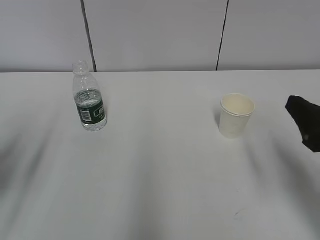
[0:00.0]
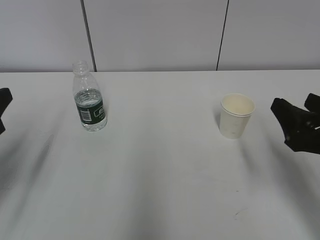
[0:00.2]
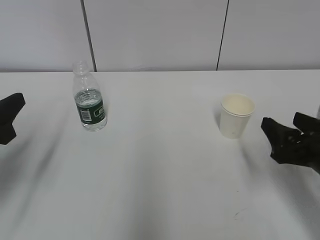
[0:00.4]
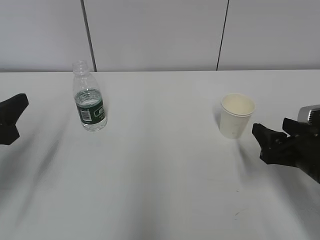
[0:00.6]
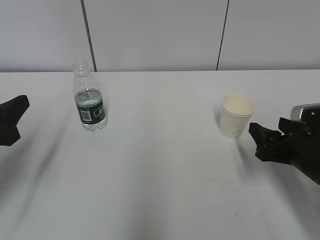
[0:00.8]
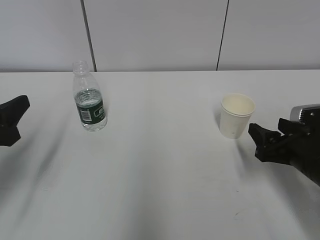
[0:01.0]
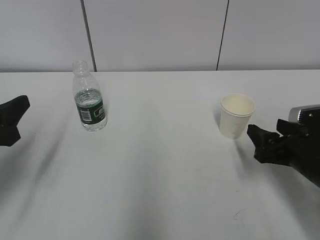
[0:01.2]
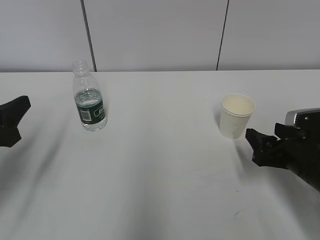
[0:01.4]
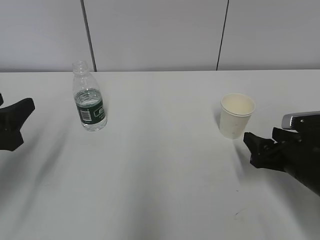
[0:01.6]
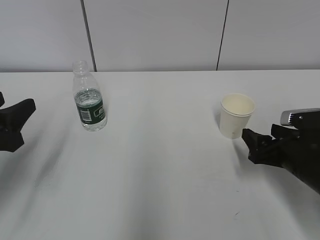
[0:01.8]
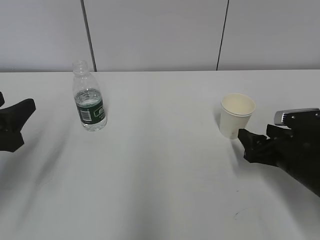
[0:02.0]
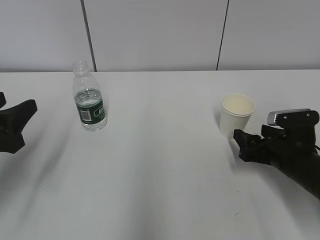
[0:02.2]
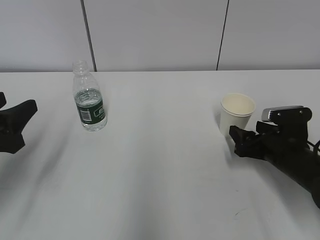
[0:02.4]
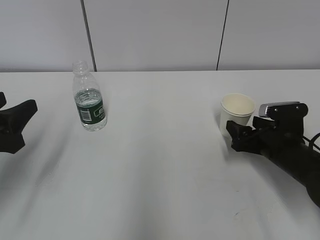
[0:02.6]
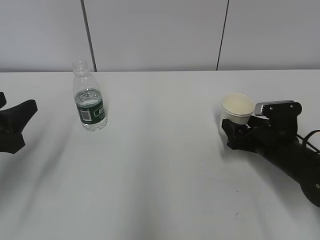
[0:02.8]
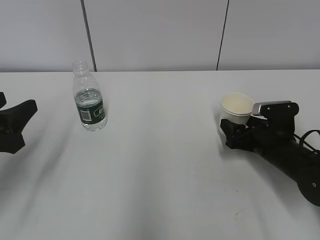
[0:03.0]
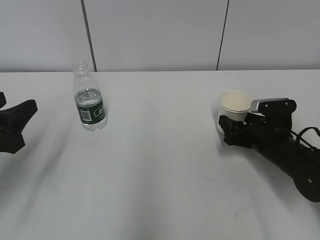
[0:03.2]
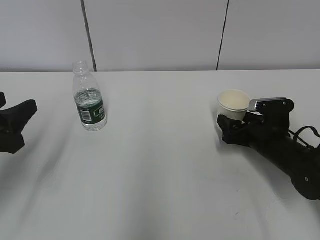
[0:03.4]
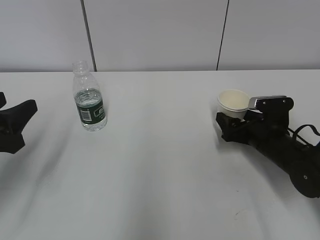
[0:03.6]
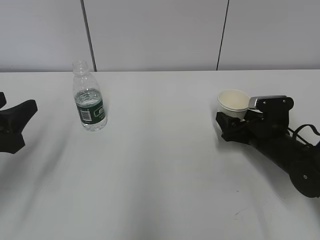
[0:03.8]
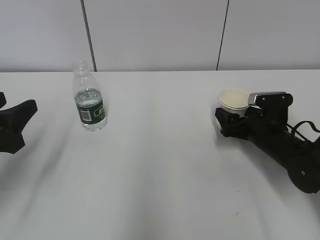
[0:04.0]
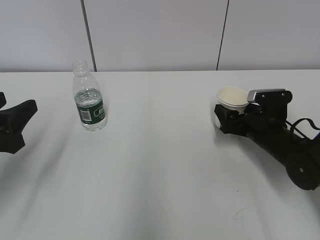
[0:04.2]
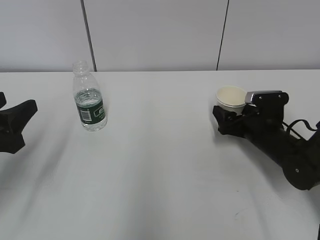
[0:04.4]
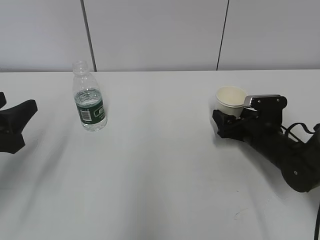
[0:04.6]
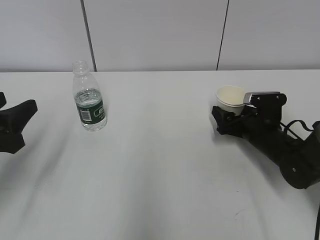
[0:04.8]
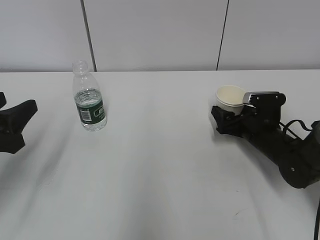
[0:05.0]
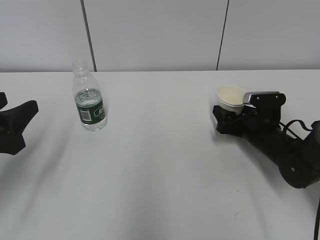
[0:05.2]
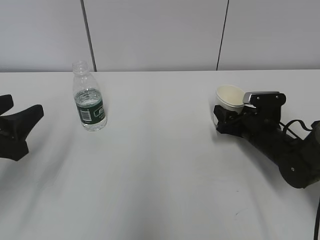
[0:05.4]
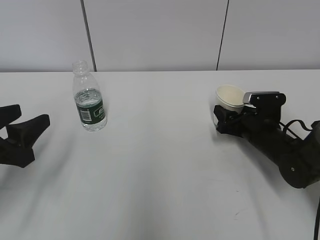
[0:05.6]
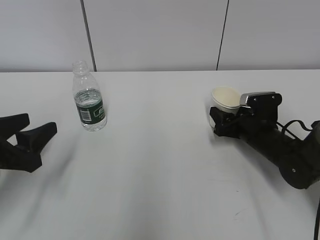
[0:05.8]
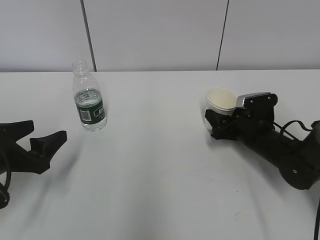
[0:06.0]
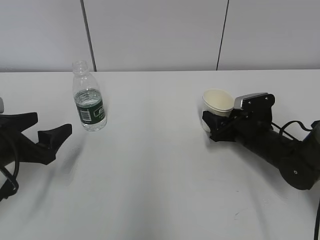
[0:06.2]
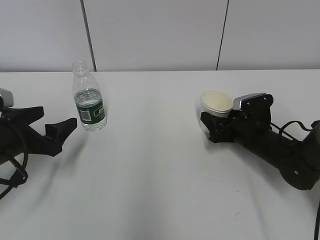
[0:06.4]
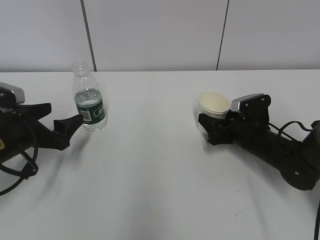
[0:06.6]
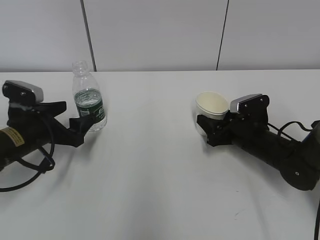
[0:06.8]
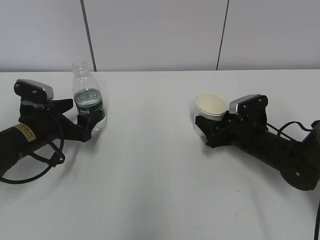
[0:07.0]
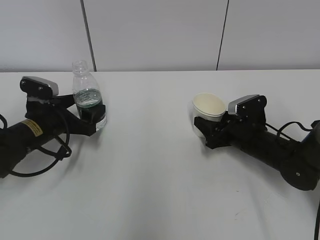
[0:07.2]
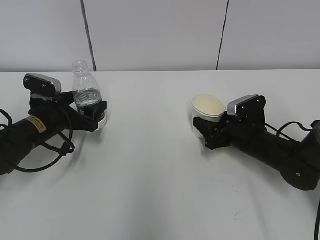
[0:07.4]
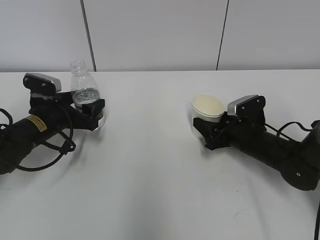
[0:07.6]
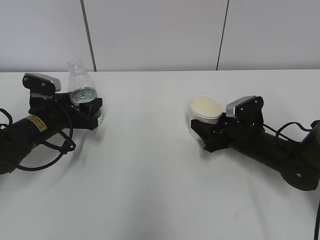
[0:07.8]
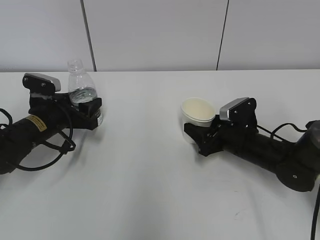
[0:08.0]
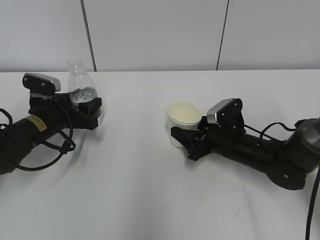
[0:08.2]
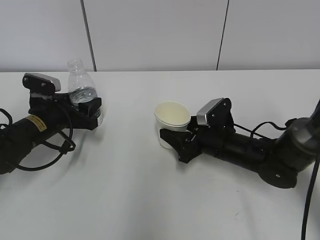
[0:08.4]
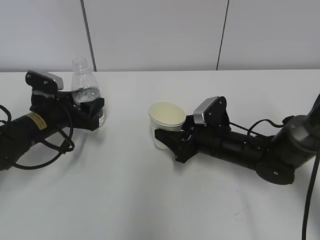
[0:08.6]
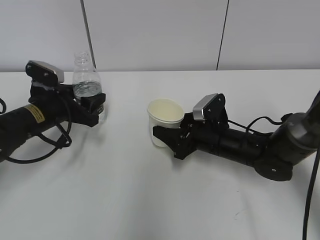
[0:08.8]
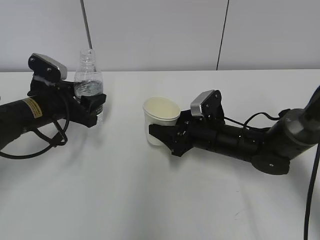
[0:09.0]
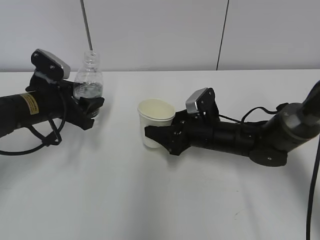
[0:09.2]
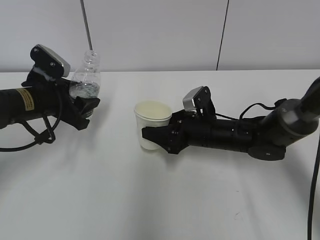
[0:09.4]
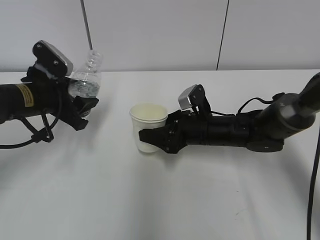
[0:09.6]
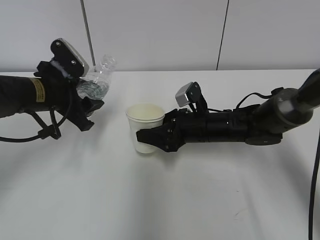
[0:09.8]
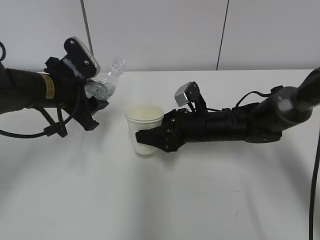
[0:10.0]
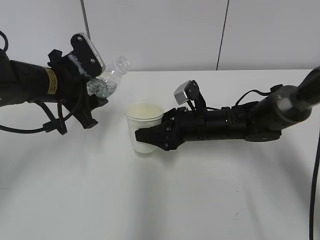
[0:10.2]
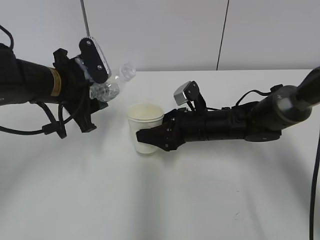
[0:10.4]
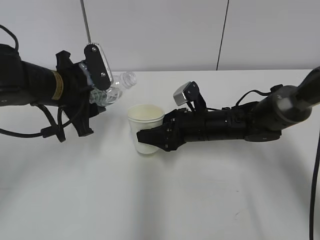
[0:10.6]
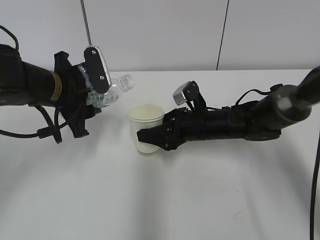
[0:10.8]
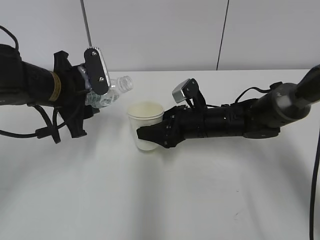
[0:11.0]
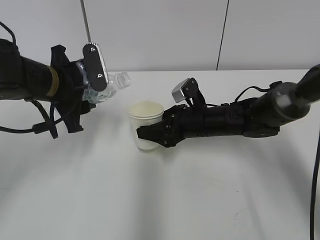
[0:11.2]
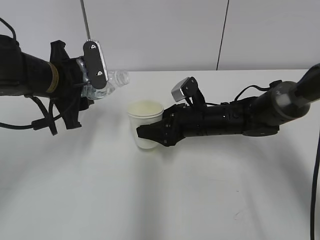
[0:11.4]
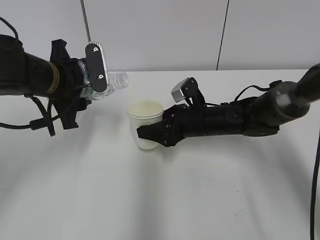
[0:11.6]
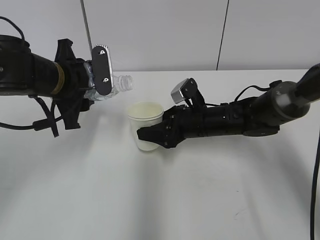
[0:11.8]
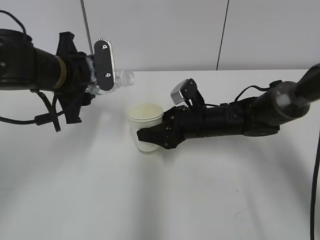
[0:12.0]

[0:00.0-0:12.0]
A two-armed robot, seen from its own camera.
Step, 0:00.0 to 0:06.4: Grab the paper cup with the right hand.
Step, 0:06.6 to 0:10.4: Lift the paper cup with the right hand.
0:00.0 to 0:01.6: The right gripper heads downward and forward, covering approximately 15 cm.
0:01.6 to 0:03.0: The right gripper is displaced forward by roughly 5 cm.
0:03.0 to 0:04.4: There are only small adjustments of the grippers.
0:04.4 to 0:06.0: The left gripper heads downward, covering about 5 cm, and opens up, while the right gripper closes up.
0:06.0 to 0:07.6: The left gripper shifts about 15 cm forward.
0:07.6 to 0:09.0: The left gripper closes; the right gripper goes about 5 cm to the left.
0:09.0 to 0:10.4: The left gripper is displaced upward by roughly 5 cm.

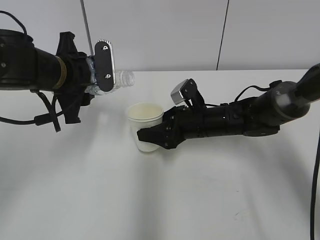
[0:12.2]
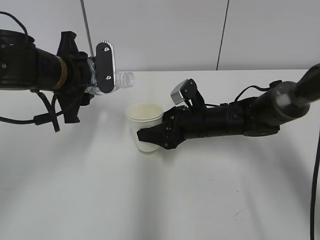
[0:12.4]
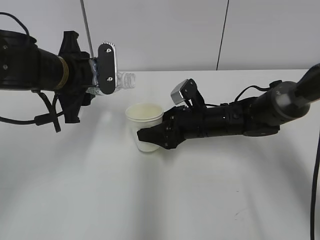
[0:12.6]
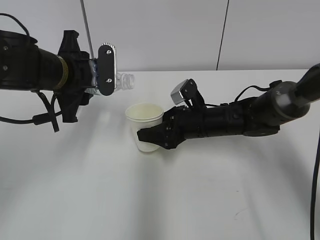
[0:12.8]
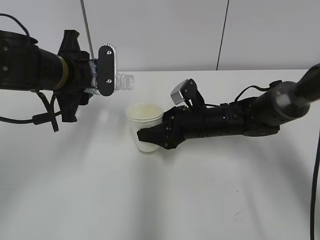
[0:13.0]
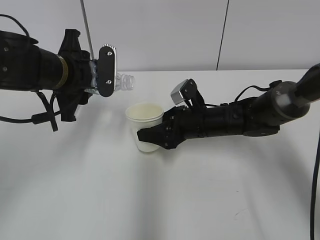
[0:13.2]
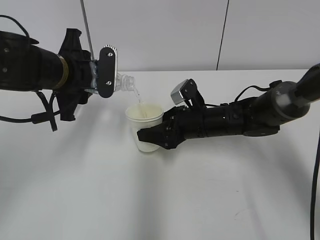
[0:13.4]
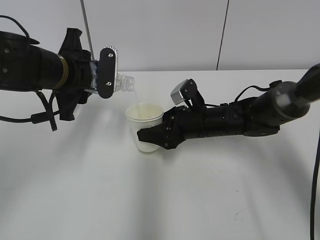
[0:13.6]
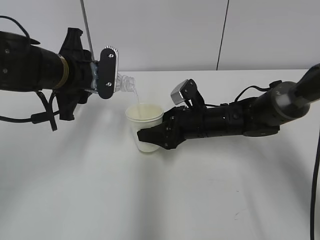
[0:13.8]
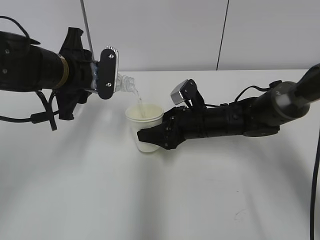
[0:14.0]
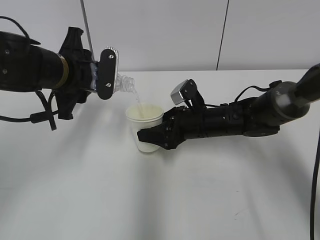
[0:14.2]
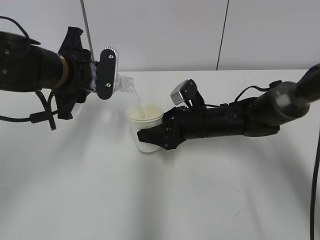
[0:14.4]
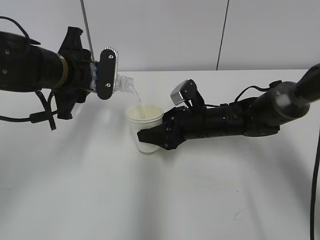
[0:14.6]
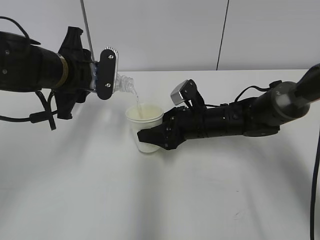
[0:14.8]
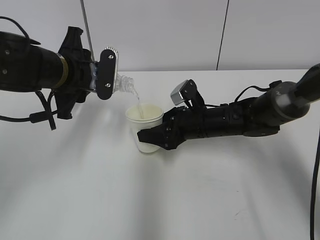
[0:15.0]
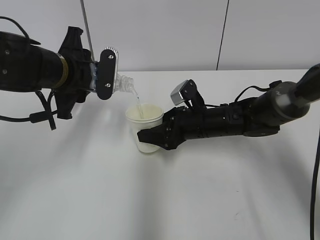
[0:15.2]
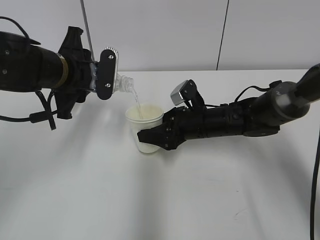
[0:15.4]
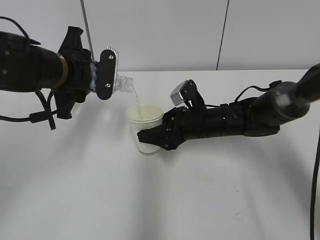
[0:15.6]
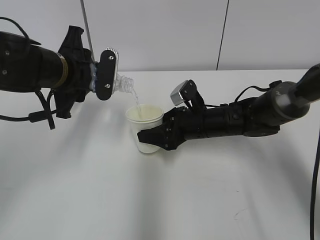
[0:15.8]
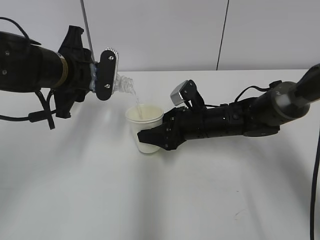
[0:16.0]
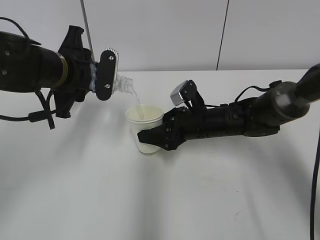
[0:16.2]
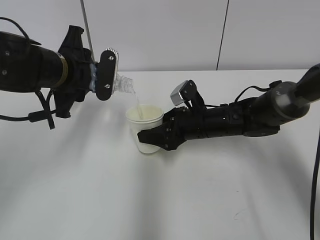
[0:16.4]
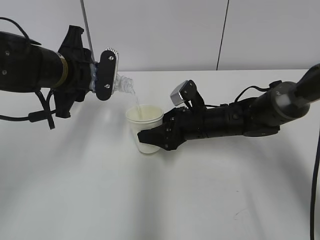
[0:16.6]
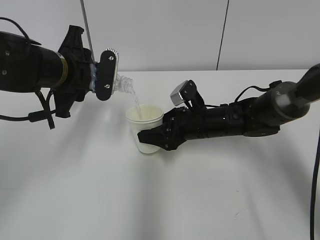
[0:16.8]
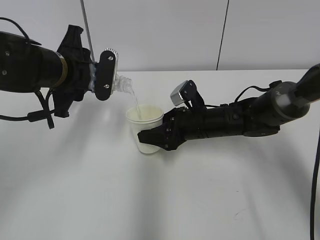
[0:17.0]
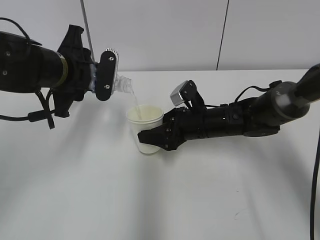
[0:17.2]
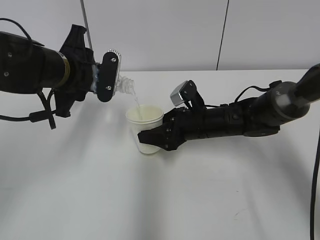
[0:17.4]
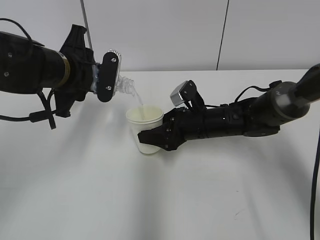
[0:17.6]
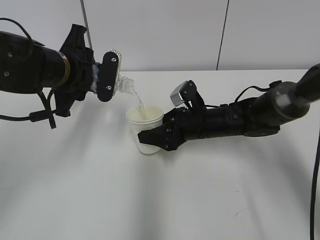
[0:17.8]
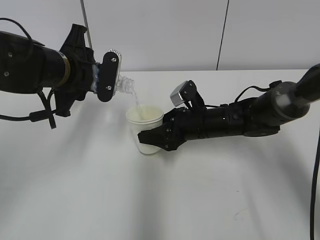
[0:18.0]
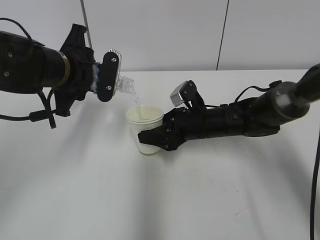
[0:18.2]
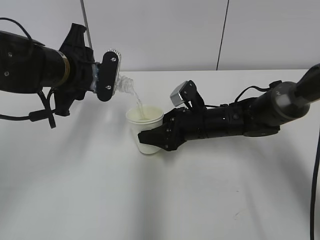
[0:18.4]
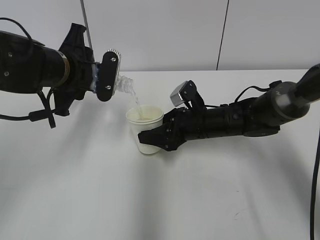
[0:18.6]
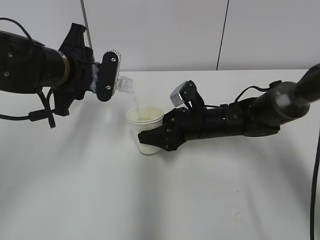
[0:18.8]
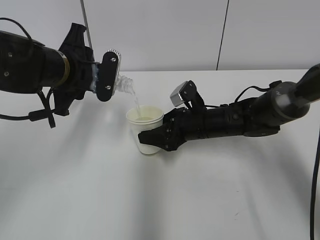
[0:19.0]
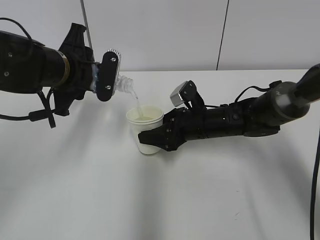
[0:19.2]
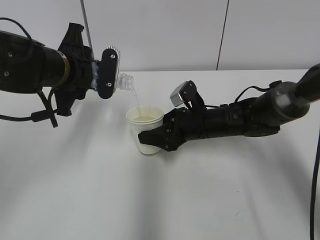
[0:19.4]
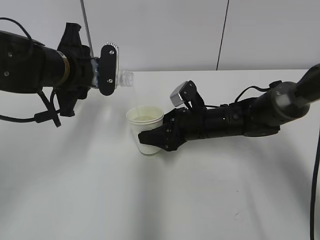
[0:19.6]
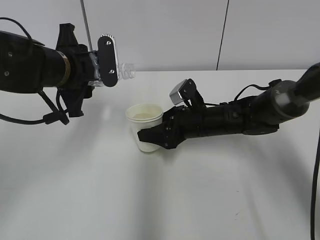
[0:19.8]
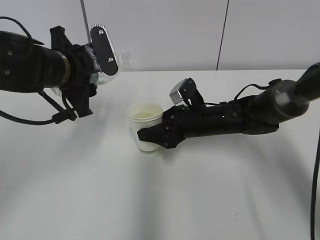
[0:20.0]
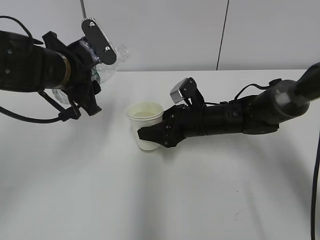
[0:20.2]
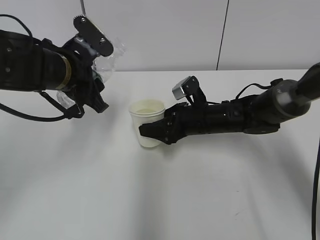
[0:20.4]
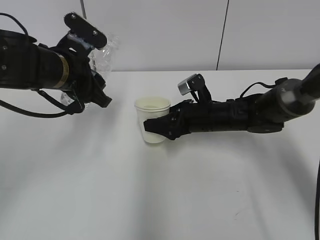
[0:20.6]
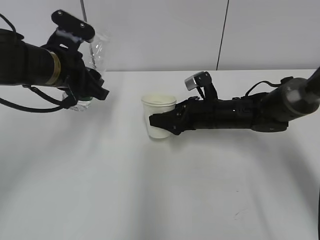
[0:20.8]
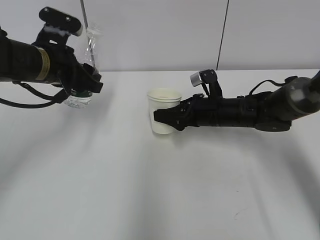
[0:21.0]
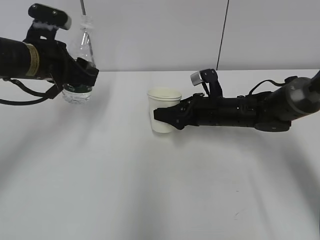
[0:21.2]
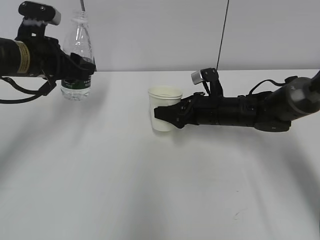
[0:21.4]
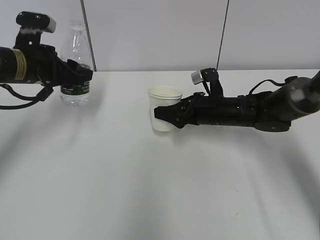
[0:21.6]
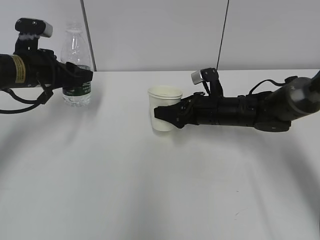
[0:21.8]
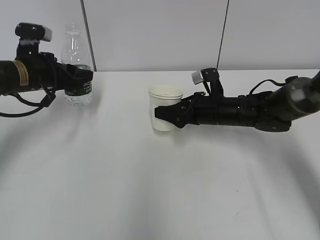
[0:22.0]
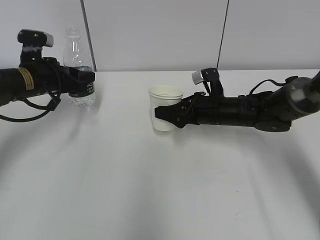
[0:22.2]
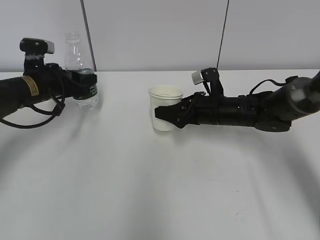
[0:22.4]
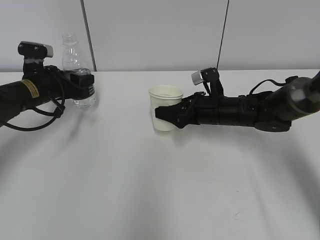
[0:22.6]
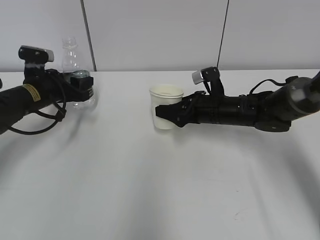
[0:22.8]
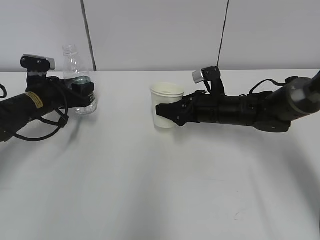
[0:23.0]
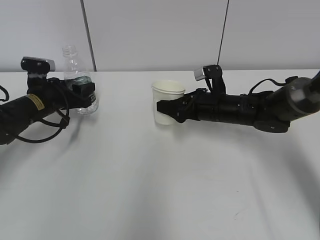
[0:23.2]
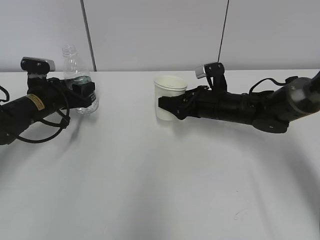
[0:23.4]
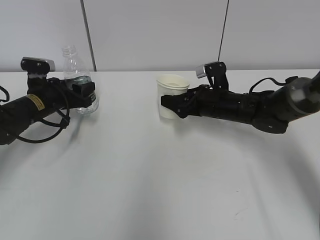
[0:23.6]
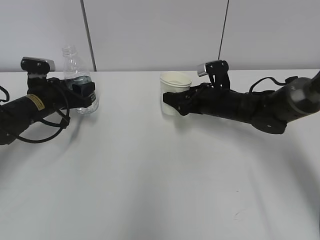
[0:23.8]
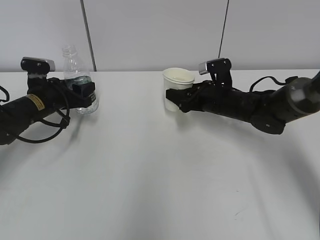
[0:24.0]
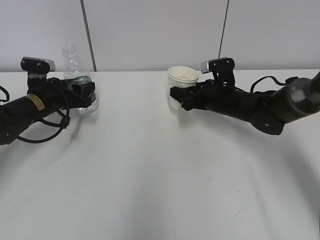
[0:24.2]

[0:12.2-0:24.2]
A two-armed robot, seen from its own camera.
Step, 0:12.2 to 0:15.6: Pour water with the left hand.
Step, 0:17.2 to 0:24.0: Place the paper cup with the right hand.
0:12.2 to 0:13.8: The grippers move only a little.
0:13.8 to 0:16.6: The two grippers keep their place.
0:16.6 to 0:18.2: Both grippers stay about where they are.
0:18.2 to 0:19.8: The grippers make only small movements.
0:21.2 to 0:22.6: The left gripper shifts about 10 cm downward.
0:22.6 to 0:24.2: The grippers stay close to where they were, moving slightly.
